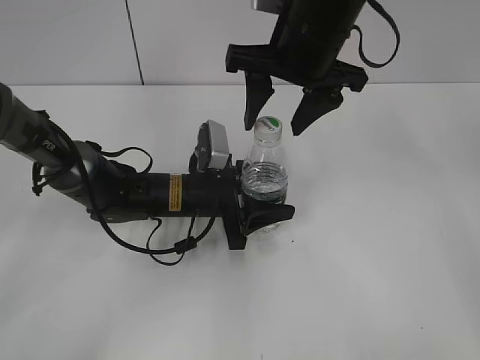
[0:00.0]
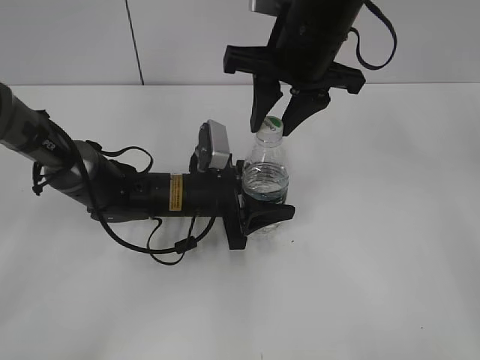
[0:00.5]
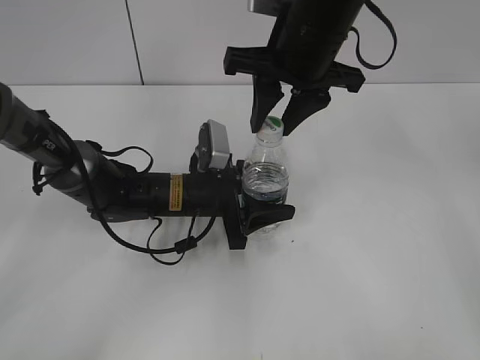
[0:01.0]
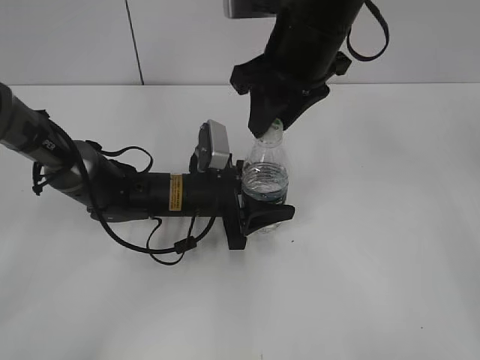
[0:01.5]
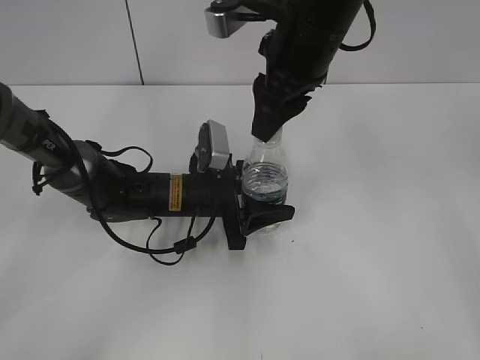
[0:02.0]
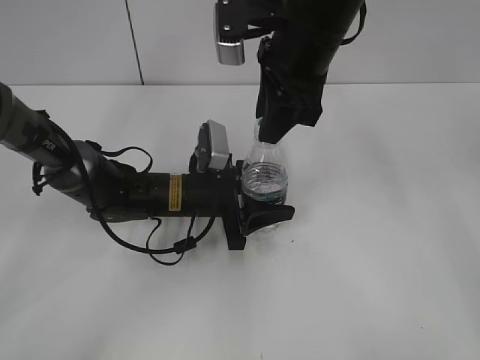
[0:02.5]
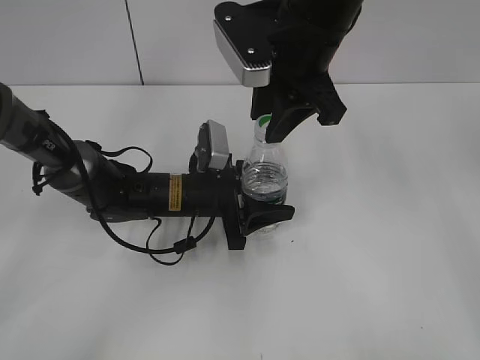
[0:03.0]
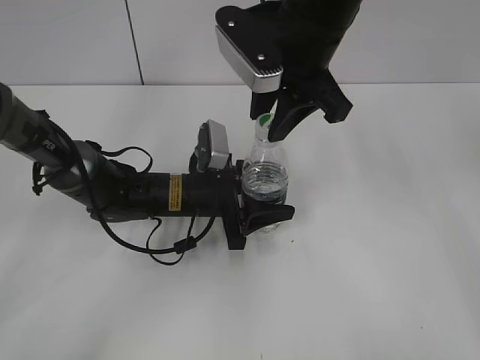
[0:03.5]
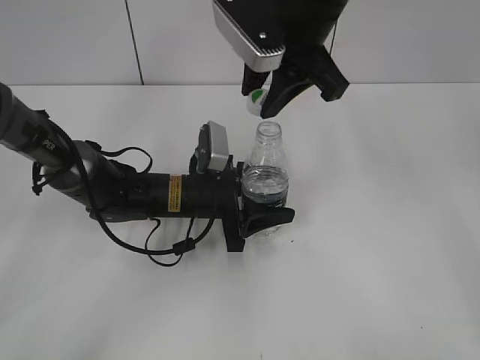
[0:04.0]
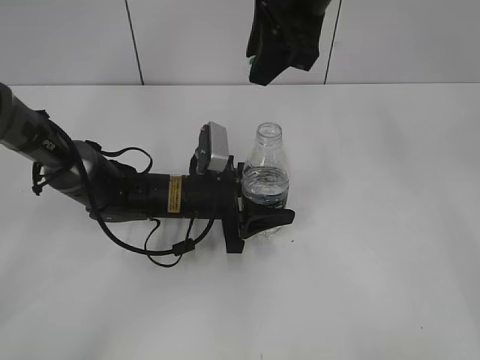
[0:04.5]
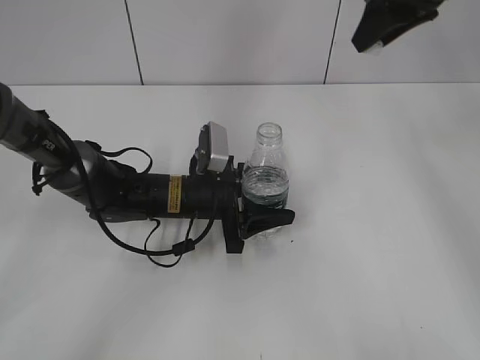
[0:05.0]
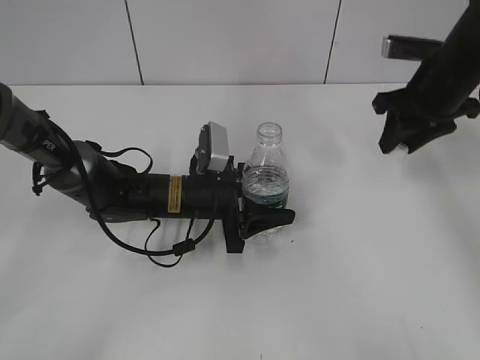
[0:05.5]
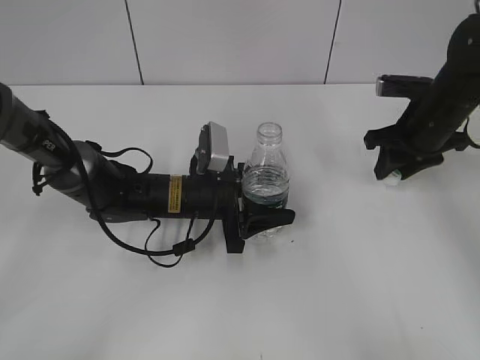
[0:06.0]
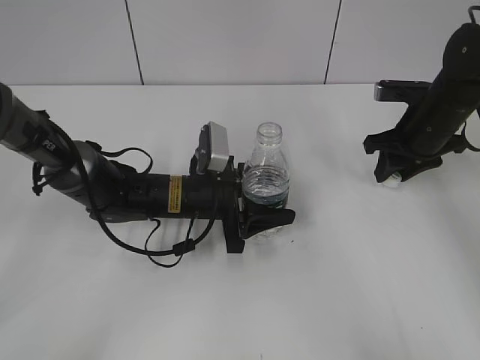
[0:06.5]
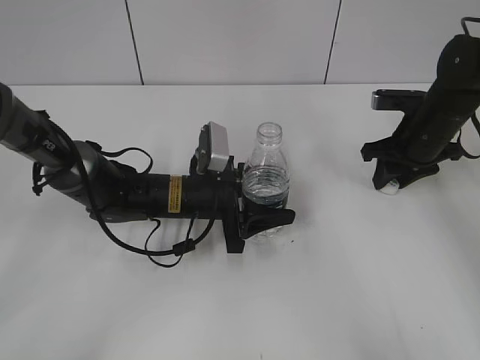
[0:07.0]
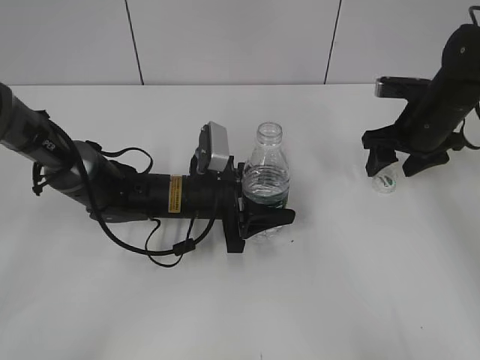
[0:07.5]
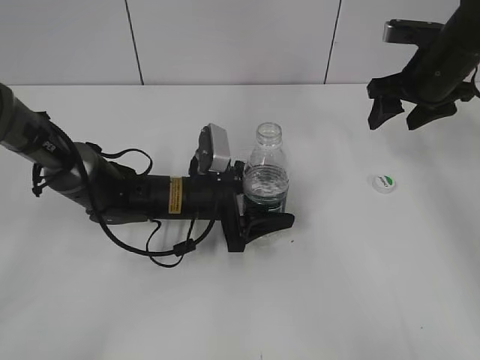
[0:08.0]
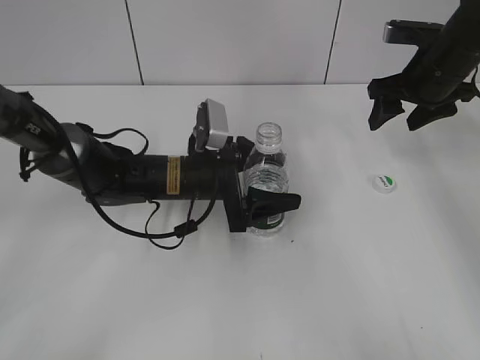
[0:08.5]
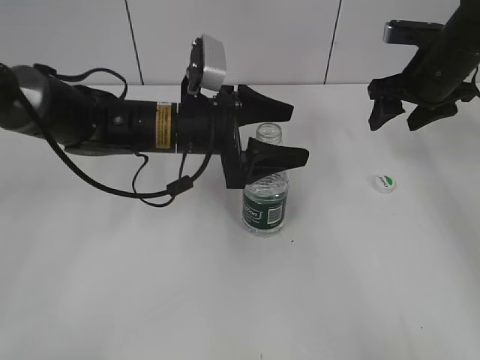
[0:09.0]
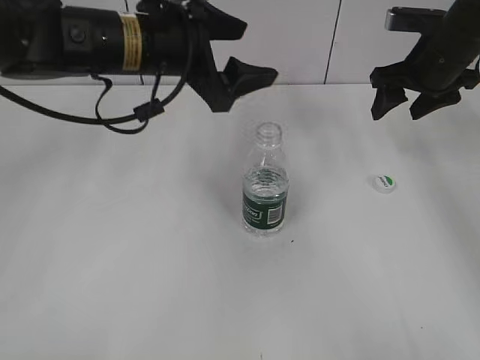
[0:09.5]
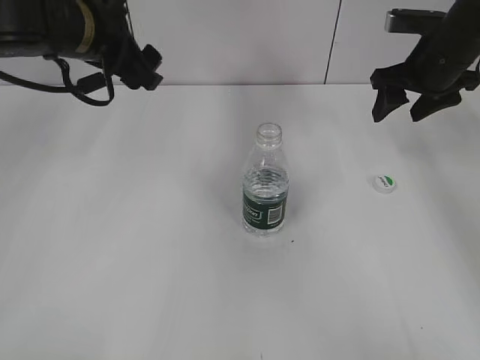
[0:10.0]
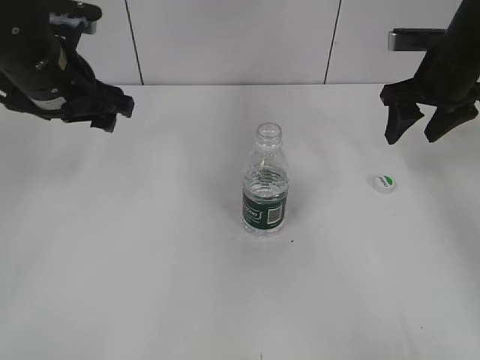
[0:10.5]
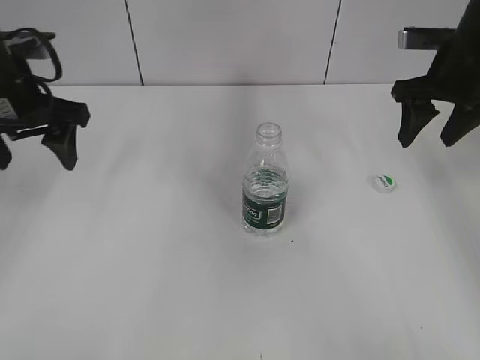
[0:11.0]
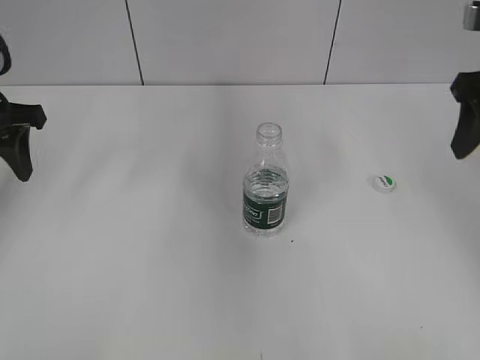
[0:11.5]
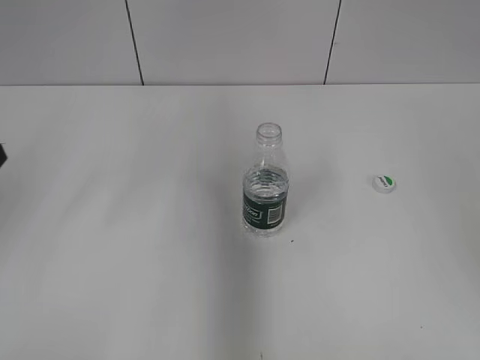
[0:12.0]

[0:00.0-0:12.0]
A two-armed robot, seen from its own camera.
Step, 0:00.0 to 0:03.5: Unscrew the bottle cap with the right gripper while holding the bottle with the left gripper.
Step, 0:04.5 to 0:07.0: Place the bottle cap on the table with the right gripper.
Step, 0:08.0 to 0:09.0: Place the bottle on the table with the left gripper.
0:00.0 to 0:02.0: The right gripper closes.
0:04.0 to 0:06.0: The right gripper heads to the right and downward, covering about 25 cm.
0:06.0 to 0:08.0: The left gripper opens; the right gripper moves about 5 cm, and opens.
0:08.0 to 0:10.0: The left gripper travels upward and to the left by some 25 cm.
0:10.0 to 0:12.0: The left gripper moves to the left and backward, about 15 cm, and closes up. The right gripper is displaced backward and upward by approximately 30 cm.

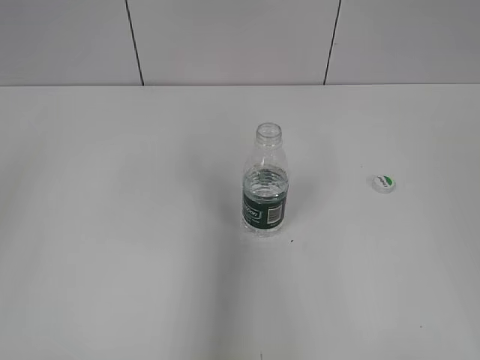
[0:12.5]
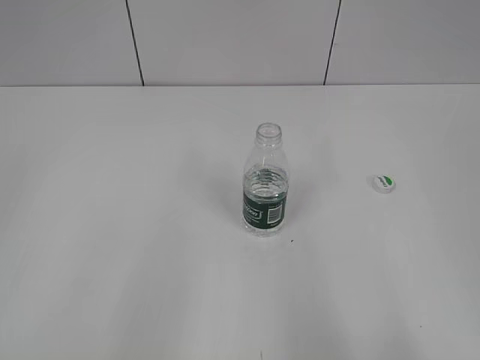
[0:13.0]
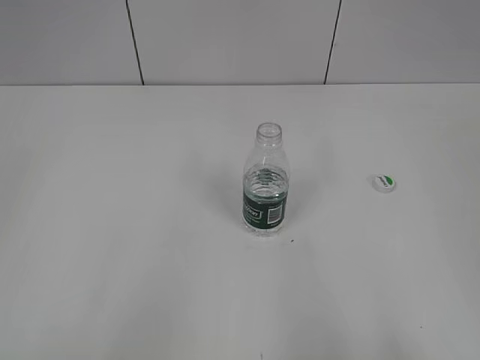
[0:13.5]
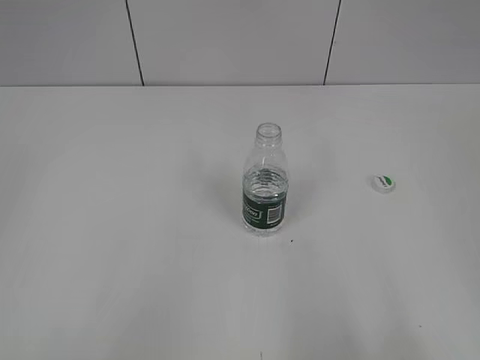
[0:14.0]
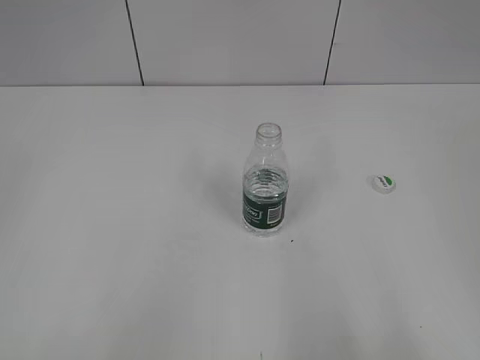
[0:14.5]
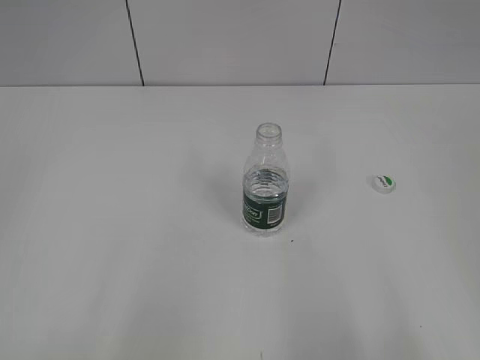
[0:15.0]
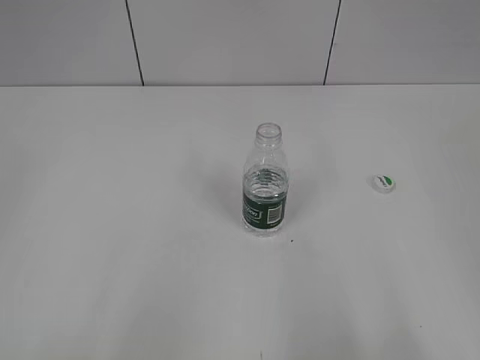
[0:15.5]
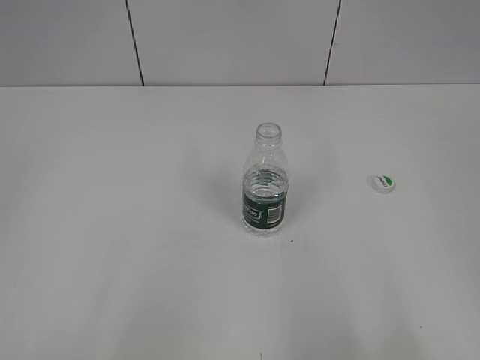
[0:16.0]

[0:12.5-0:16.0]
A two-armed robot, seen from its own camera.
0:12.5 to 0:14.5: The left gripper is displaced backward by approximately 15 cm. Meanwhile the right gripper shifts roughly 10 cm downward and backward.
